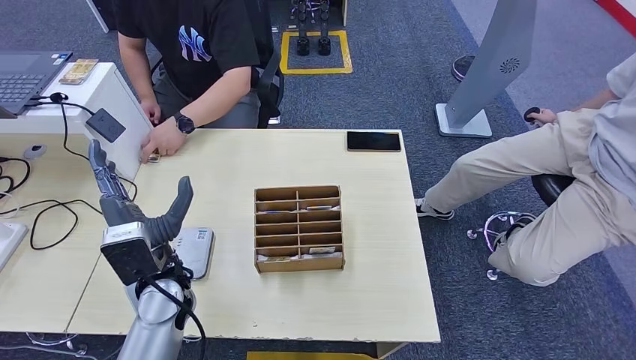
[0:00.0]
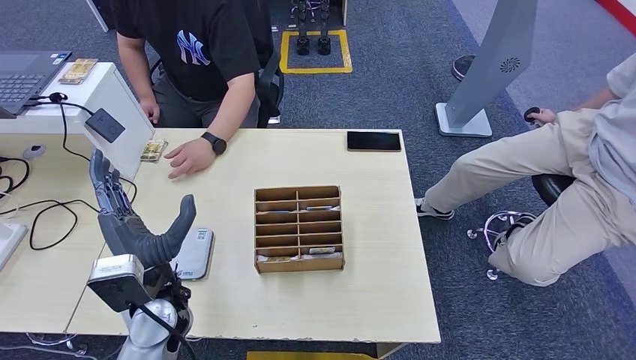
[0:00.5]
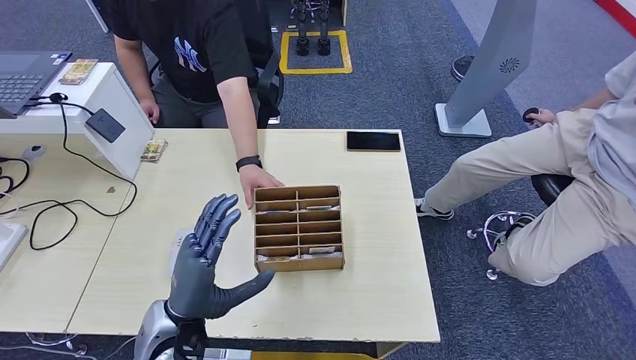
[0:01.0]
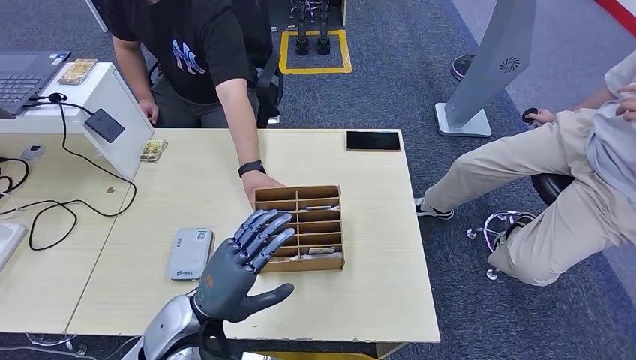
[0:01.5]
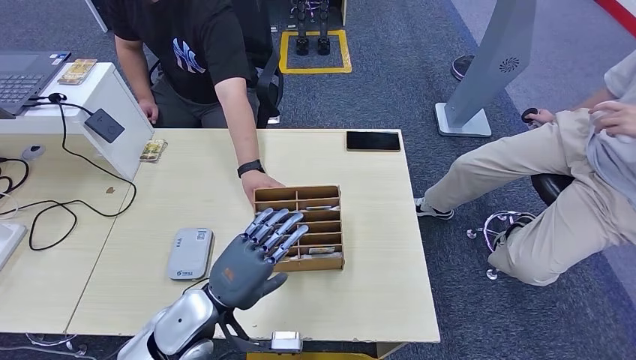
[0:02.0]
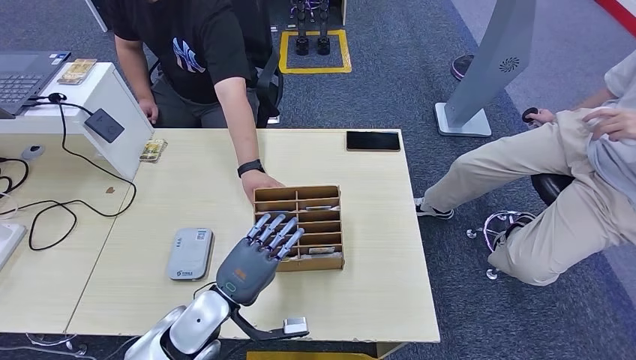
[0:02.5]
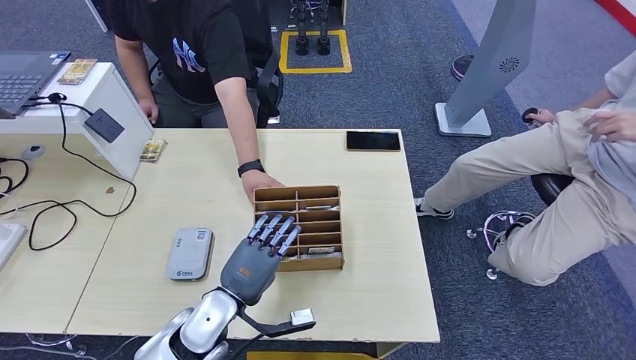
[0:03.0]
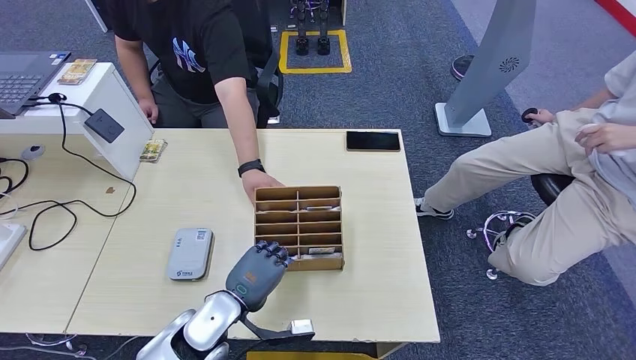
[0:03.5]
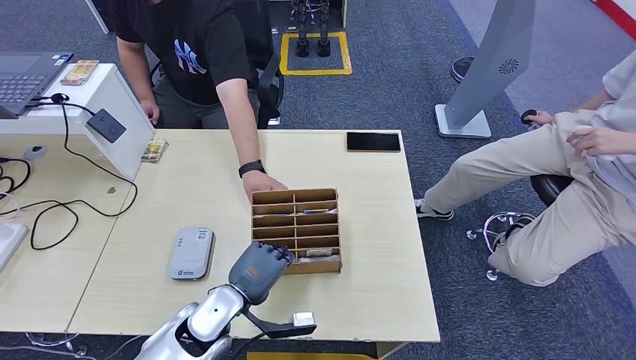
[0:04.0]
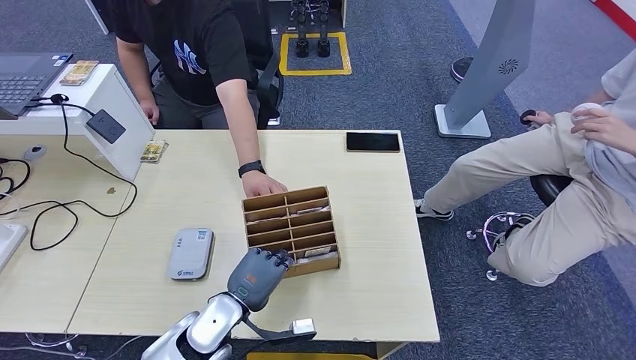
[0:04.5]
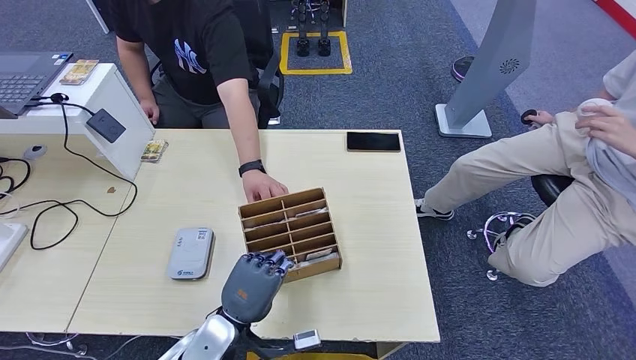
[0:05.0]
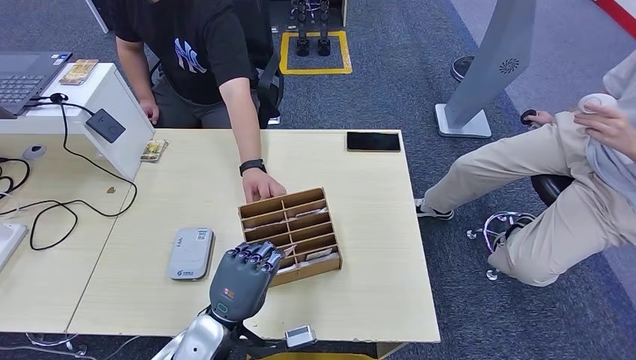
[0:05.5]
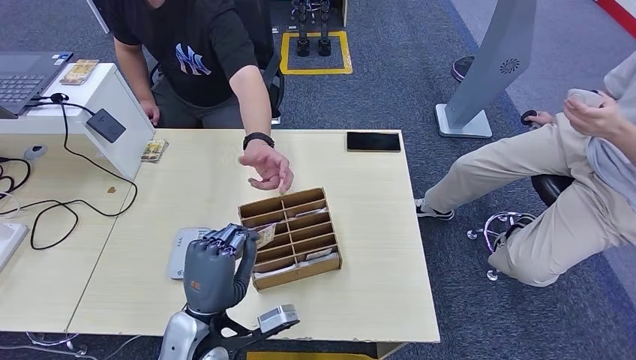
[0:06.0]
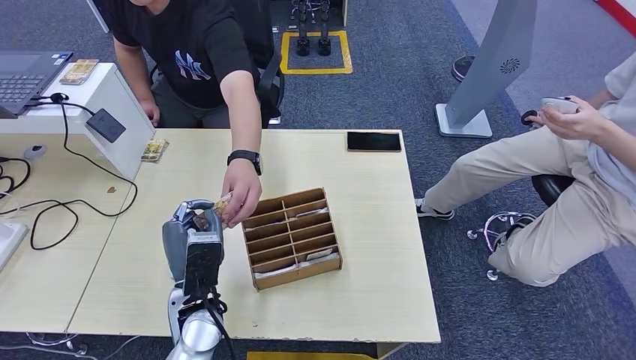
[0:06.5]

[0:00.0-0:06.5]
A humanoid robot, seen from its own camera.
Step, 0:04.0 to 0:05.5: Pick up the room key from the key card box.
Step, 0:06.0 to 0:06.5: Hand the room key to the person.
0:00.0 to 0:02.0: The left hand is displaced backward by approximately 5 cm.
0:02.0 to 0:04.5: The left hand moves downward, approximately 5 cm.
0:04.5 to 0:06.5: The left hand travels upward by about 5 cm.

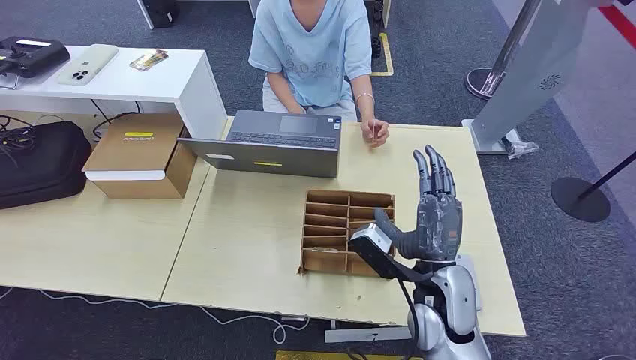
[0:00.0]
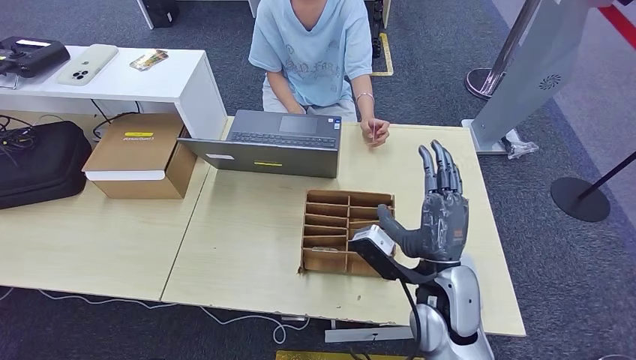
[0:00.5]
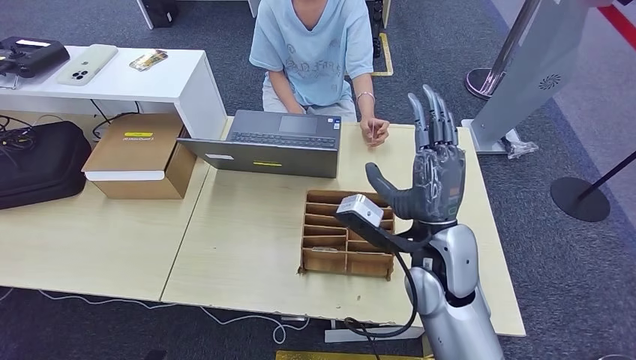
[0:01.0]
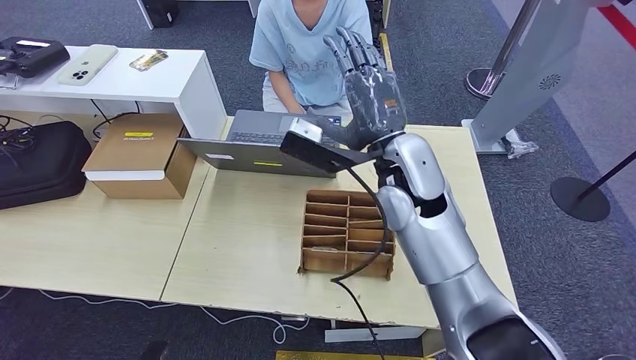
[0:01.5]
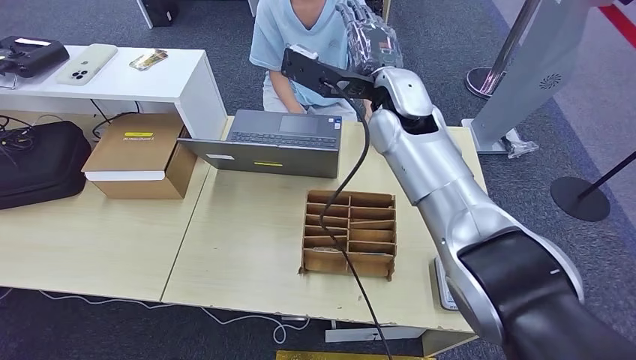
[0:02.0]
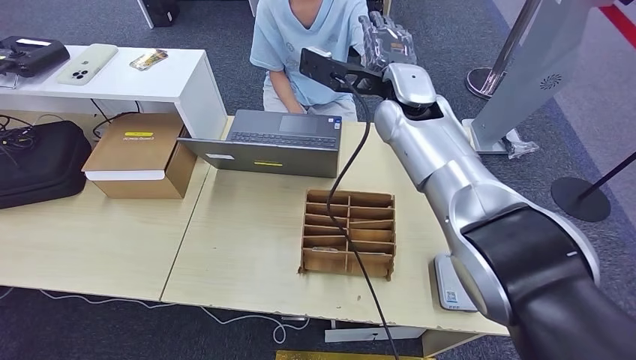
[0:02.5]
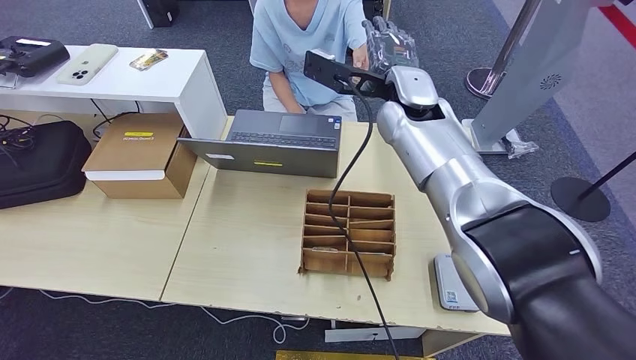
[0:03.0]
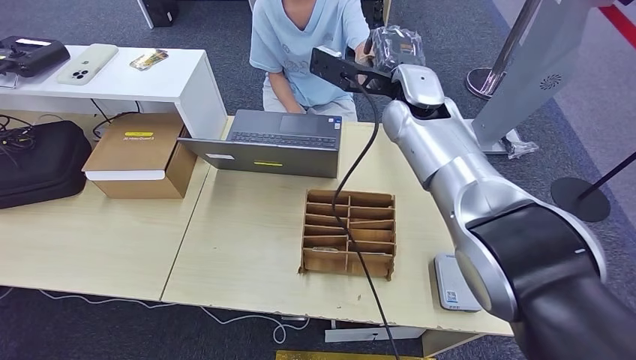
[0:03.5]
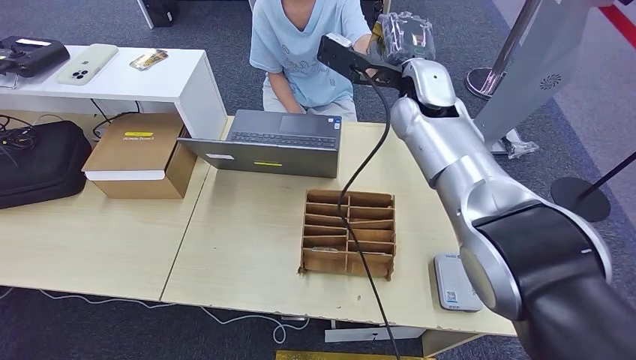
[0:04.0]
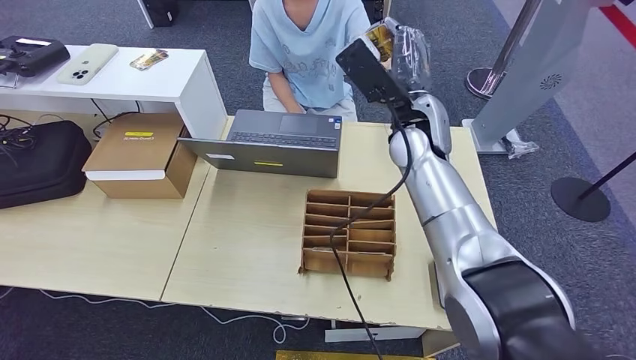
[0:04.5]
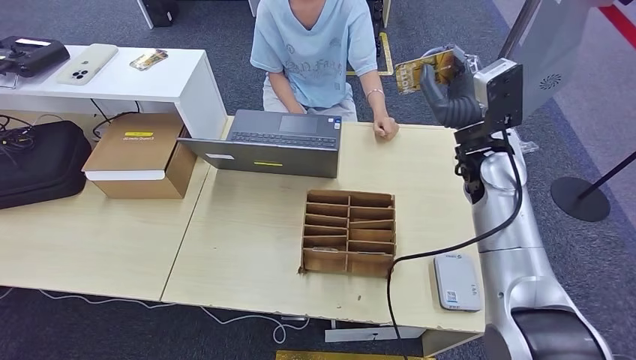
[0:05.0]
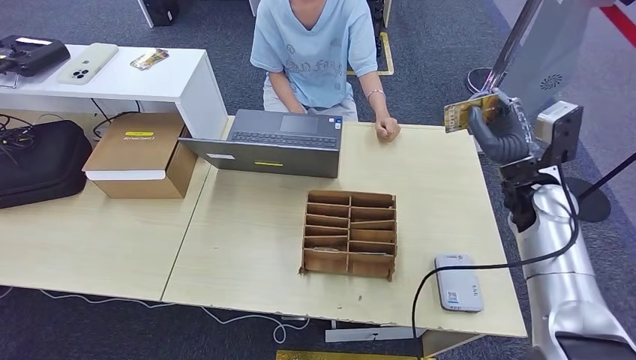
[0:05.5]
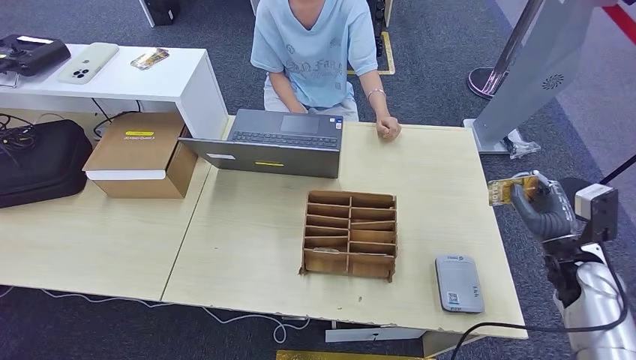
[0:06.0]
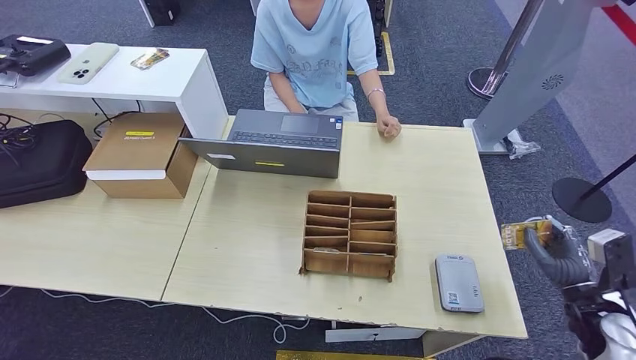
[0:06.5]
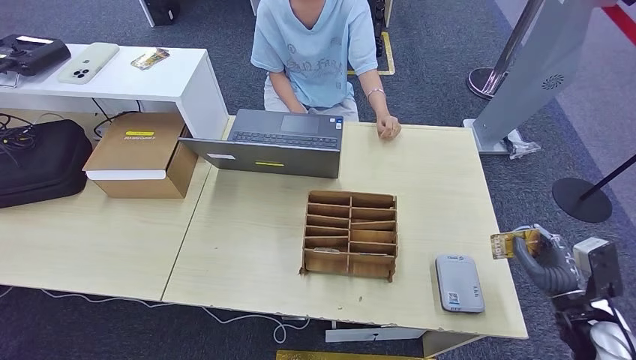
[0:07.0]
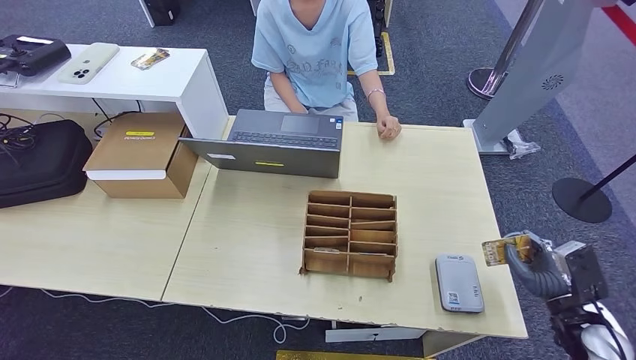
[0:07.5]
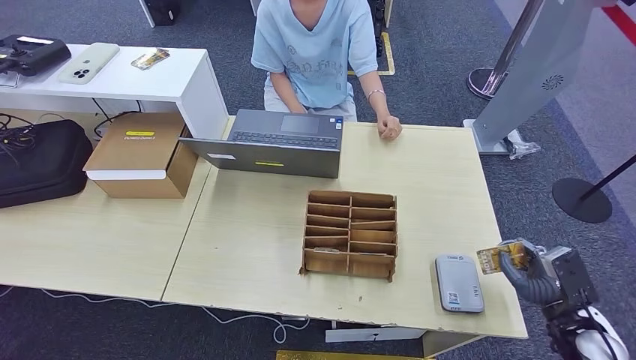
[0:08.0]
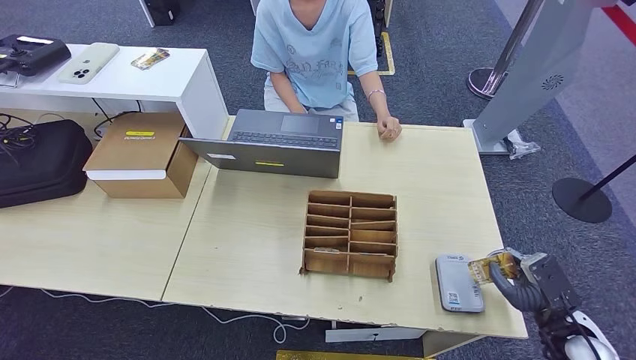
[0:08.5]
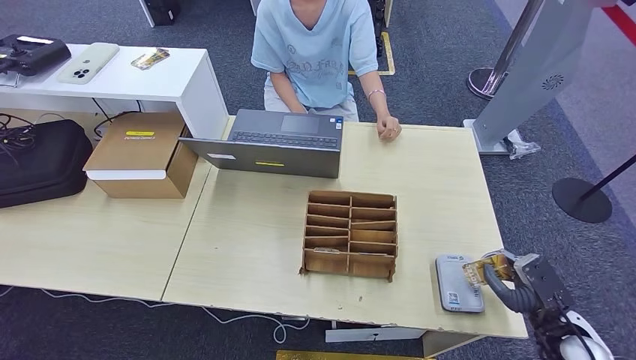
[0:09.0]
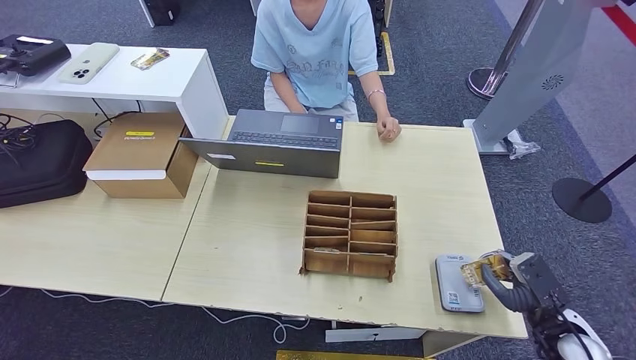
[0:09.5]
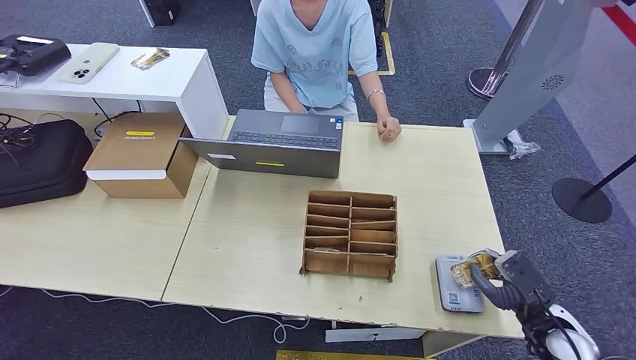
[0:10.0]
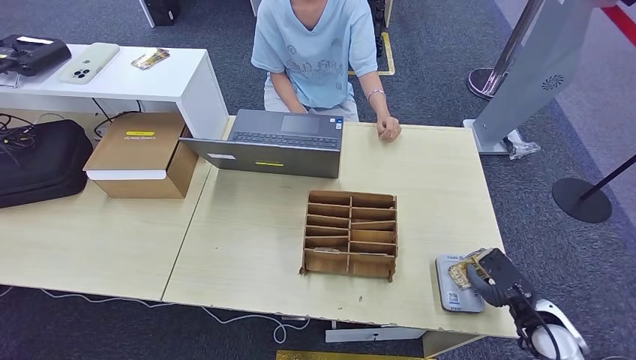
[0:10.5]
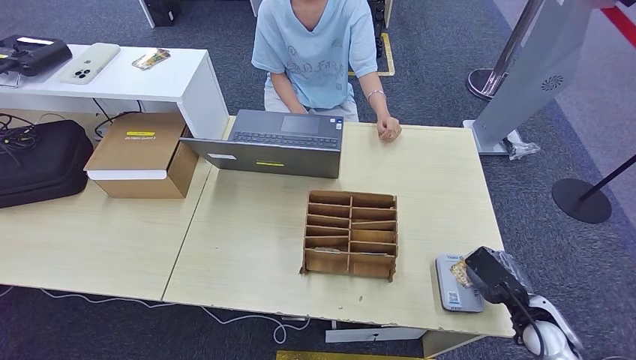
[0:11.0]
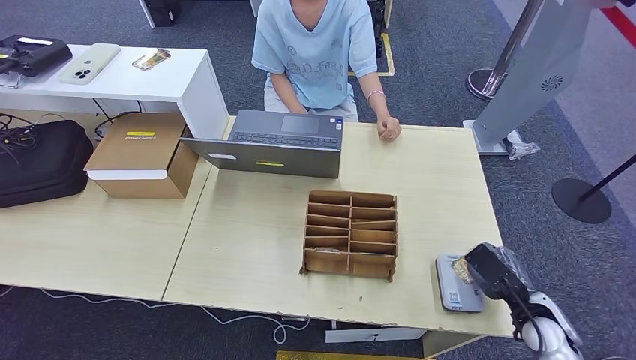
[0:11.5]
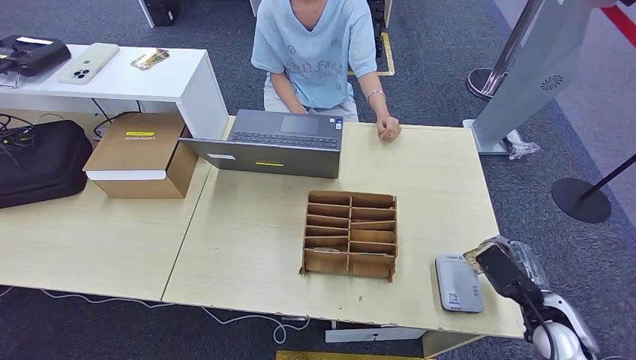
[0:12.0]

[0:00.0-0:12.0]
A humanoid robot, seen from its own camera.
Step, 0:00.0 to 0:04.5: Take the ID card from the person's hand.
Step, 0:05.0 to 0:11.0: Place the ID card on the card reader.
0:02.0 to 0:04.0: The left hand heads to the right and backward, covering about 10 cm, while the right hand shifts by some 5 cm.
0:04.0 to 0:06.0: The right hand travels to the right, downward and backward by approximately 40 cm.
0:06.0 to 0:08.0: The right hand travels backward and downward by some 10 cm.
0:08.0 to 0:10.0: The hands stay close to where they were, moving slightly.

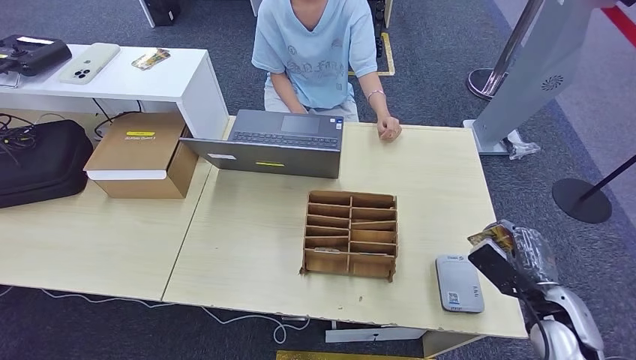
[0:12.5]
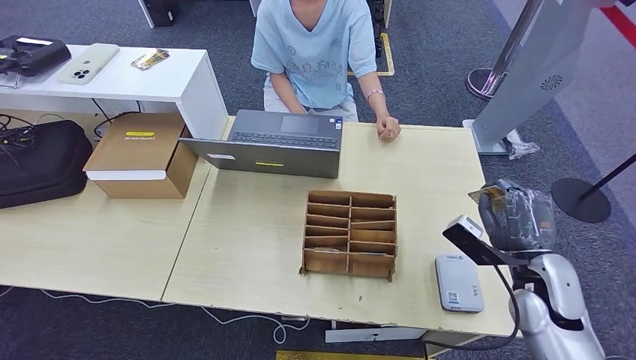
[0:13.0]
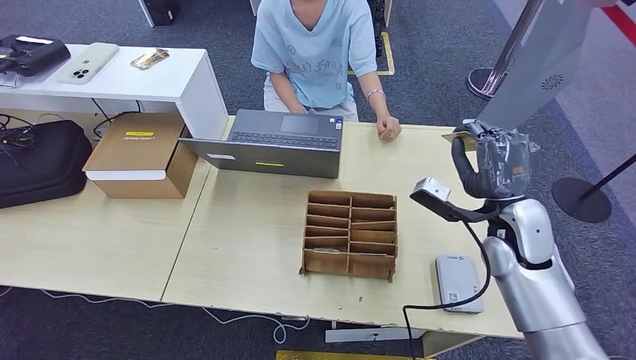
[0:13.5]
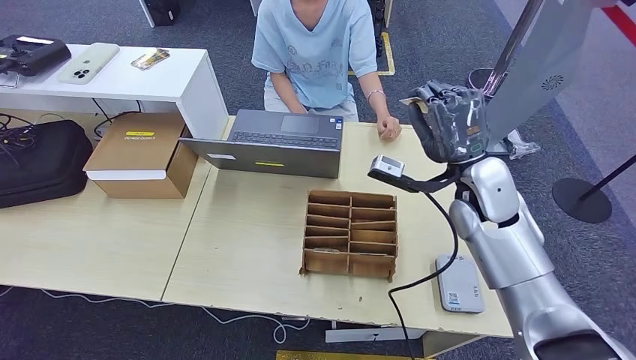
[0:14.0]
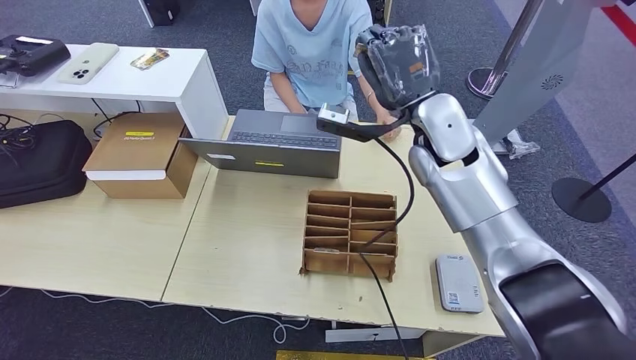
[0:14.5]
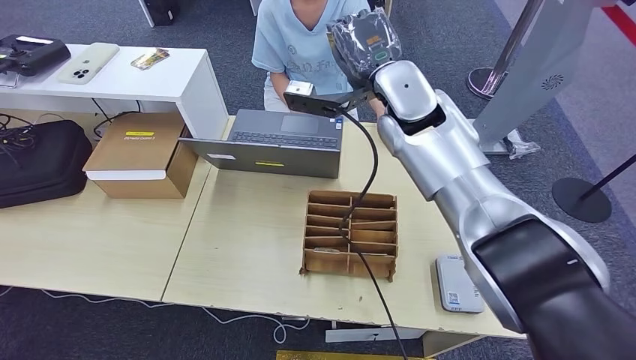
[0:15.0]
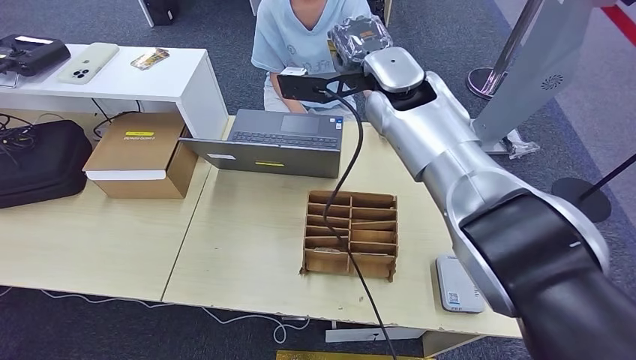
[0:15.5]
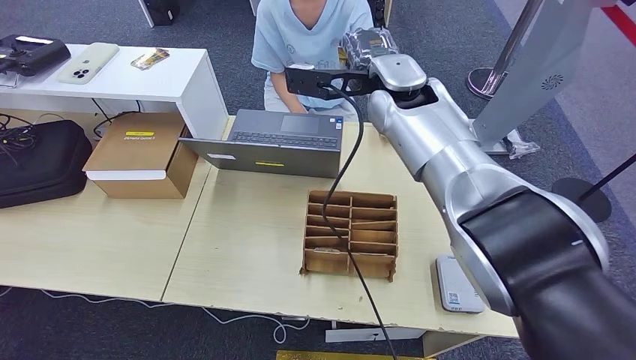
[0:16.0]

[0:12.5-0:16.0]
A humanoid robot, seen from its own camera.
0:12.5 to 0:14.5: The right hand heads forward, upward and to the left, covering some 35 cm.
0:14.5 to 0:16.0: The right hand goes some 5 cm to the left.
